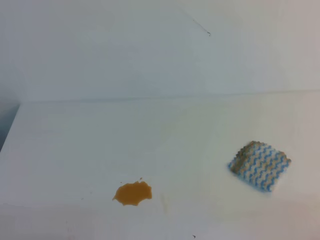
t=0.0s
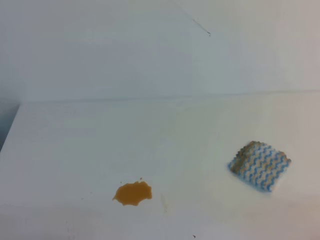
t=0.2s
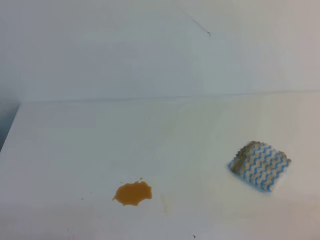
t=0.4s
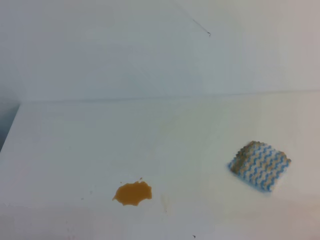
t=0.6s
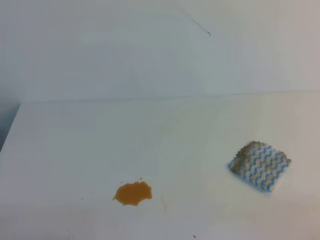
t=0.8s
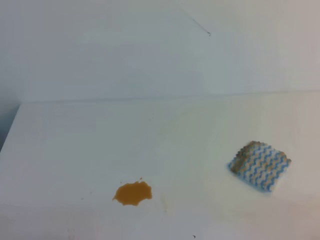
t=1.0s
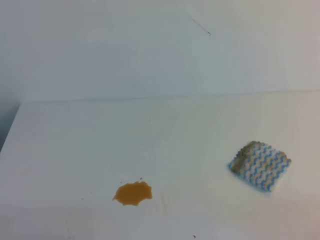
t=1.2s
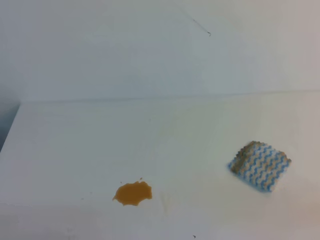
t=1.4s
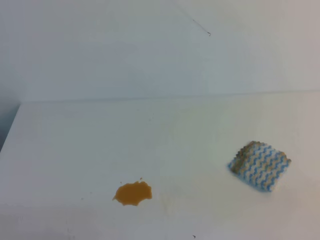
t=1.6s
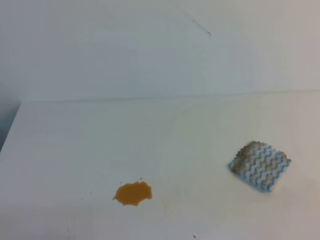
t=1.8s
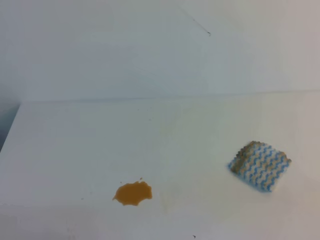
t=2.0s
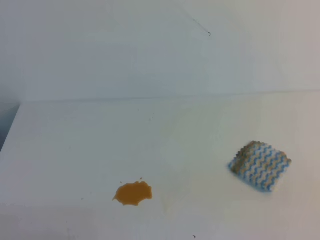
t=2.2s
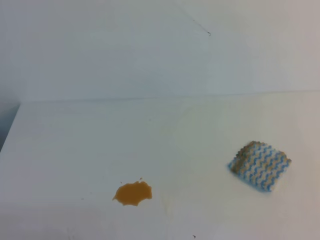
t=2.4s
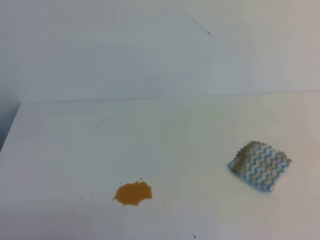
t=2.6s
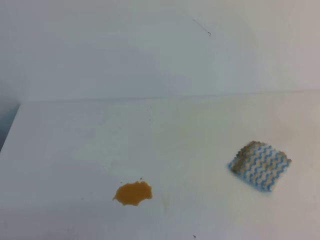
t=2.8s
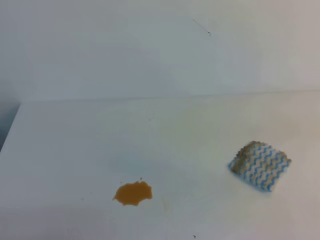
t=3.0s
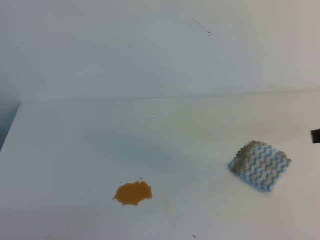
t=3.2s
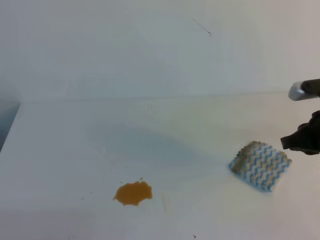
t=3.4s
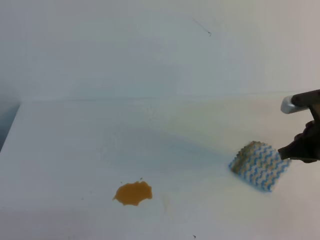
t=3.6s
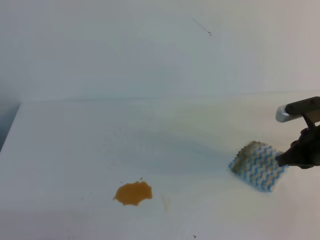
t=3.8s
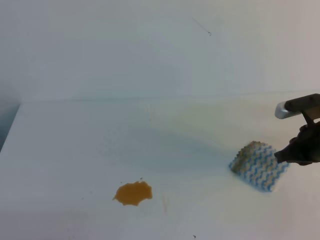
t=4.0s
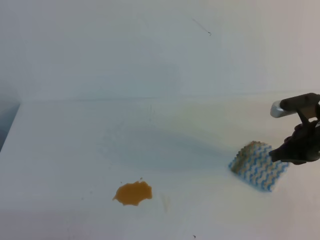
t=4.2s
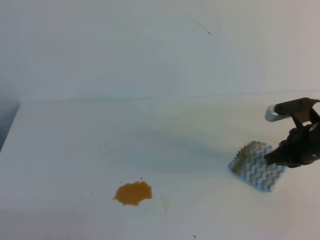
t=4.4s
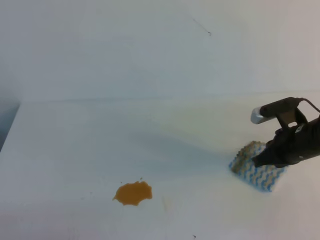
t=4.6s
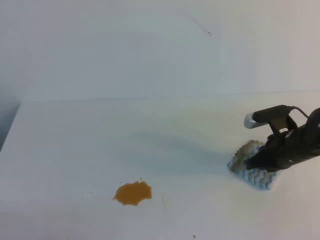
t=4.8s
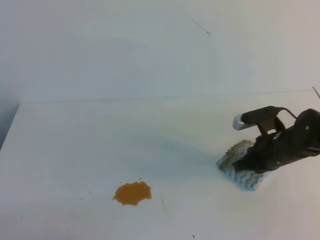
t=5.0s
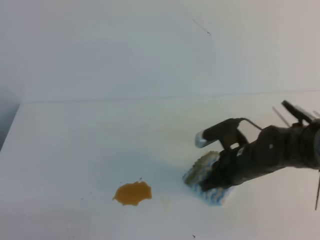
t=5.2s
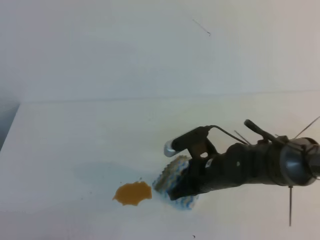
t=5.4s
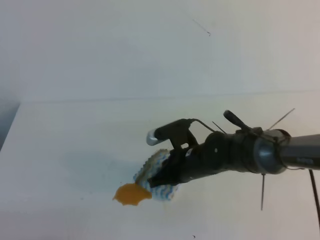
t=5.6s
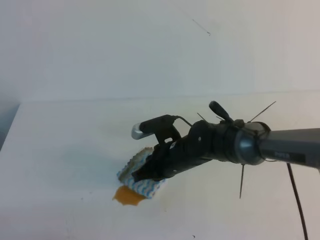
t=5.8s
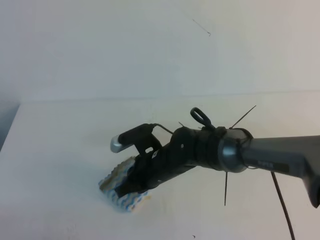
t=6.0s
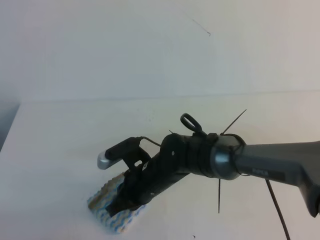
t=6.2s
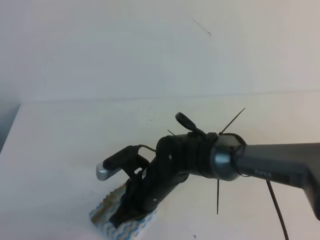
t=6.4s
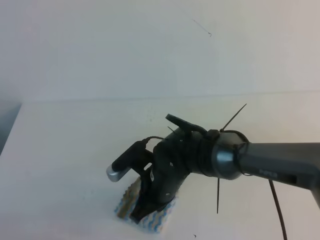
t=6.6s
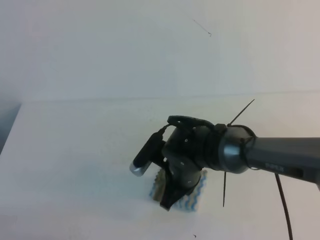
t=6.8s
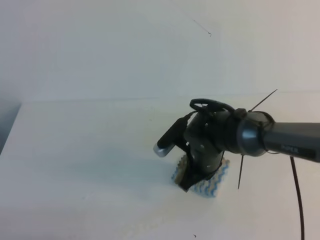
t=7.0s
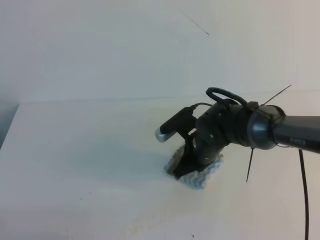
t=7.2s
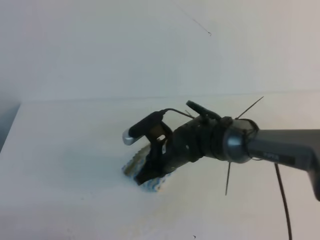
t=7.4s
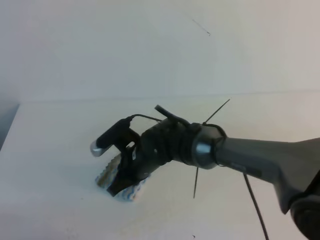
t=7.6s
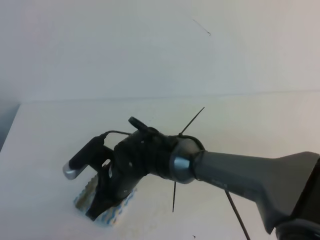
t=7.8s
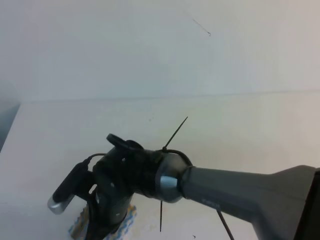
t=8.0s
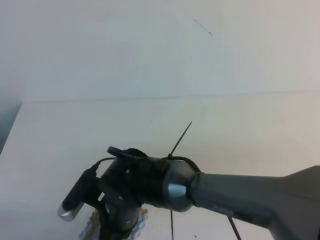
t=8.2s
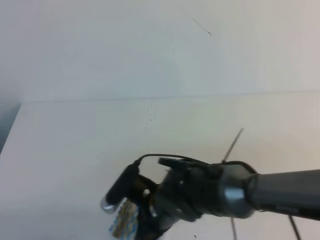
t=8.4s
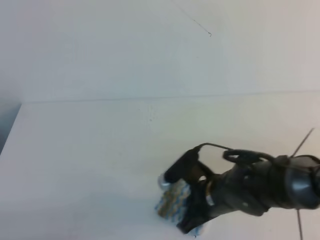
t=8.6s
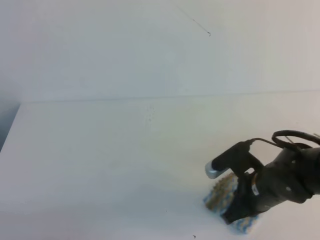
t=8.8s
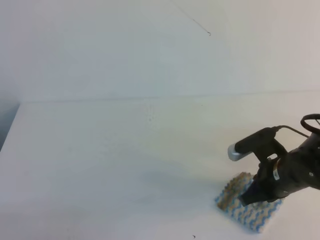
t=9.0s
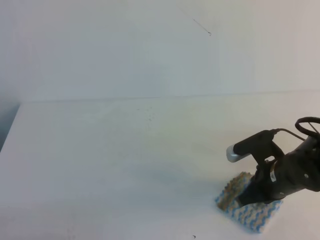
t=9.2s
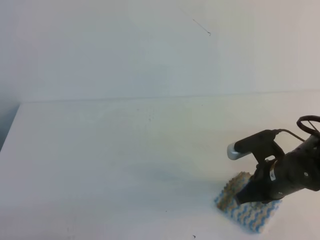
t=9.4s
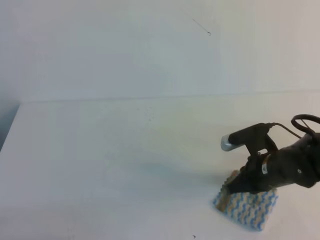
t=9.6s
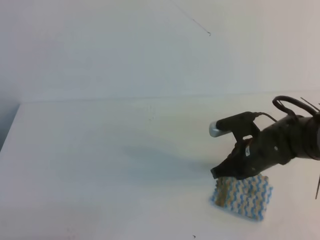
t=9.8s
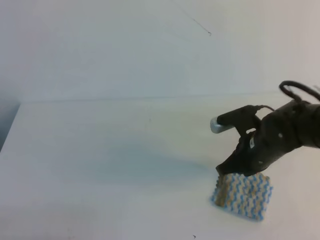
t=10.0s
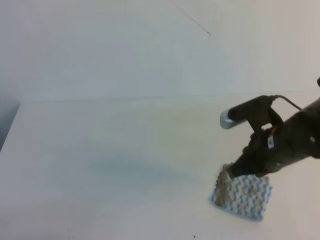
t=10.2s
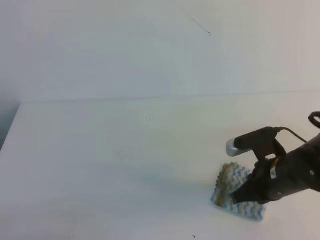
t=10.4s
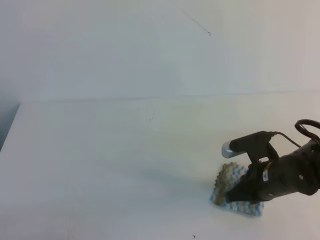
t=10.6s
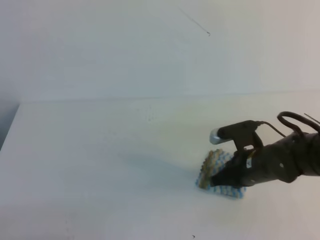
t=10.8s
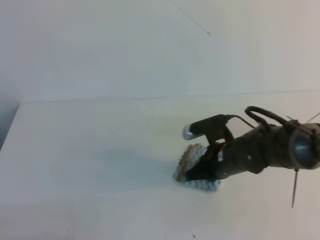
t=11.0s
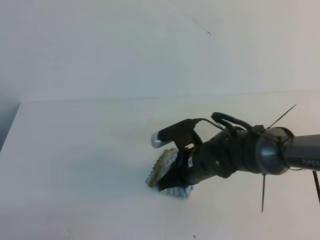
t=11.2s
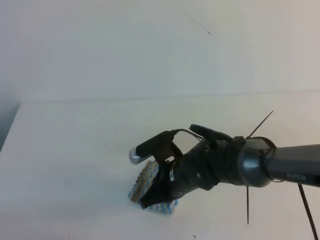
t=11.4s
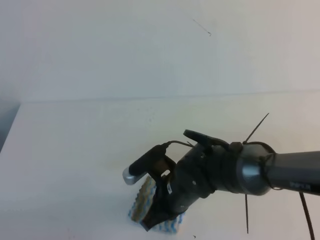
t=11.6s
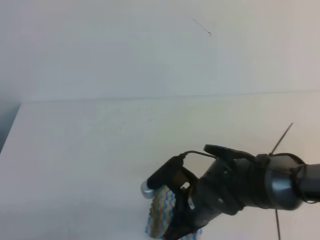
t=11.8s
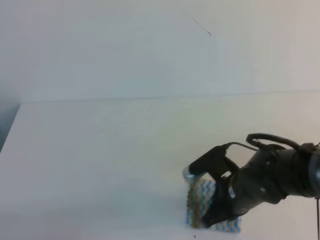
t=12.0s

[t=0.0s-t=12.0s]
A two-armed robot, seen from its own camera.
t=3.0s to t=4.4s: The right gripper travels downward, forward and to the left by about 20 cm.
t=4.4s to t=6.0s: The right gripper goes roughly 25 cm to the left.
t=6.0s to t=7.6s: The right gripper moves some 5 cm to the right and comes back.
t=7.6s to t=9.0s: The right gripper shifts roughly 20 cm to the right.
t=9.0s to t=10.4s: The grippers make only small movements.
t=10.4s to t=12.0s: The right gripper moves to the left, roughly 5 cm.

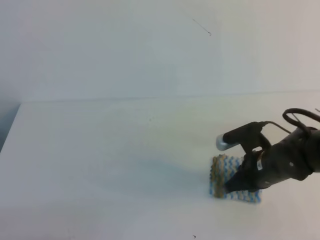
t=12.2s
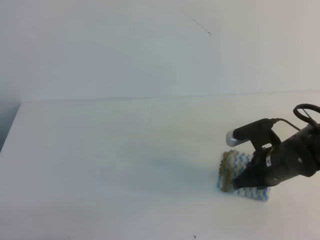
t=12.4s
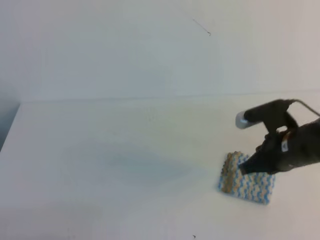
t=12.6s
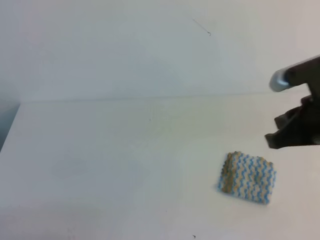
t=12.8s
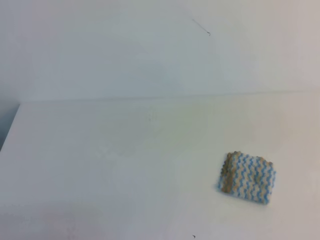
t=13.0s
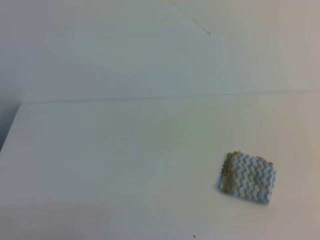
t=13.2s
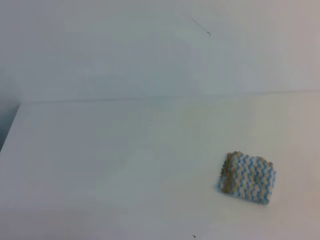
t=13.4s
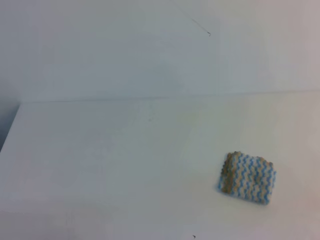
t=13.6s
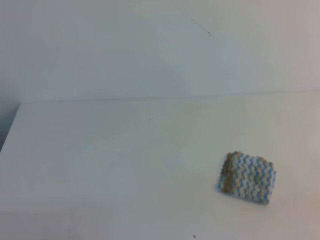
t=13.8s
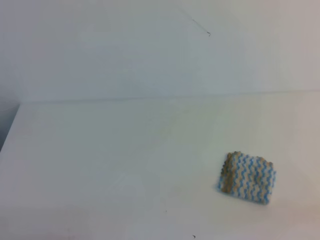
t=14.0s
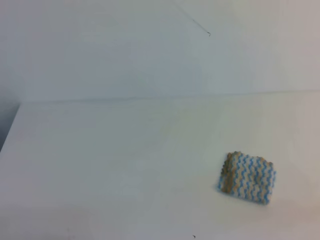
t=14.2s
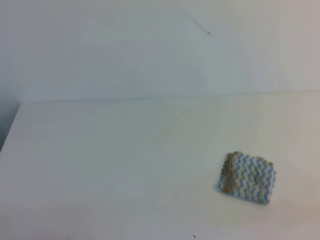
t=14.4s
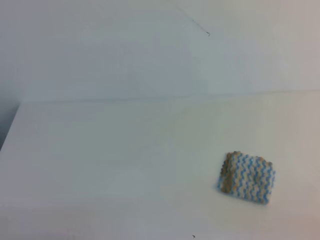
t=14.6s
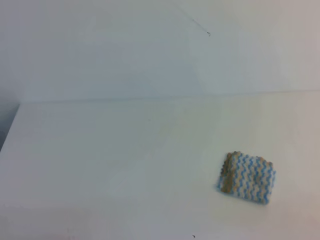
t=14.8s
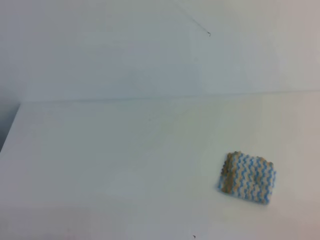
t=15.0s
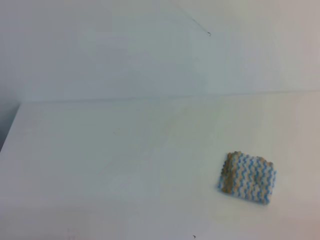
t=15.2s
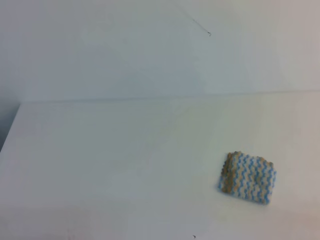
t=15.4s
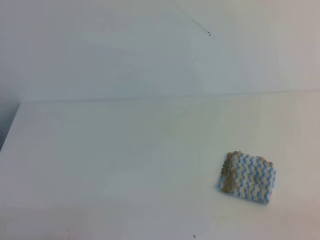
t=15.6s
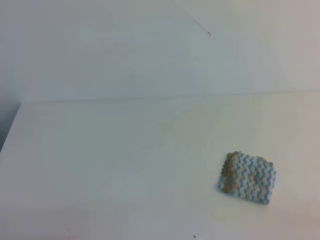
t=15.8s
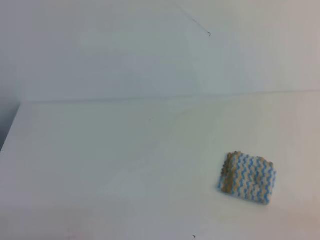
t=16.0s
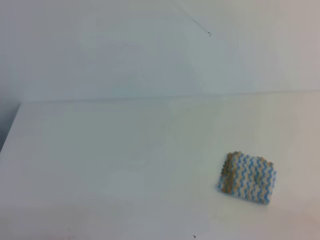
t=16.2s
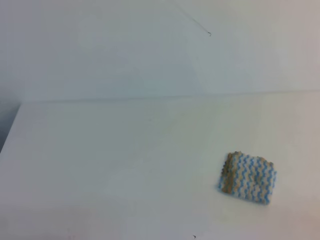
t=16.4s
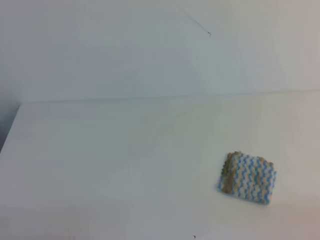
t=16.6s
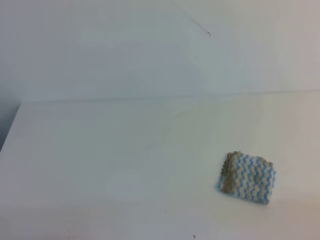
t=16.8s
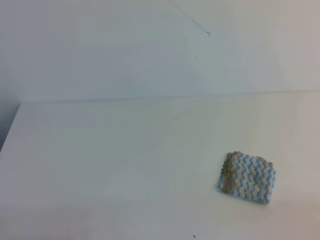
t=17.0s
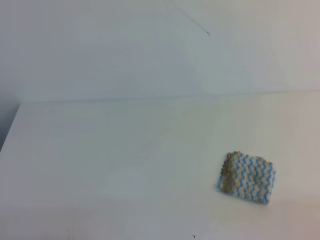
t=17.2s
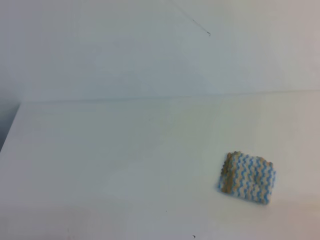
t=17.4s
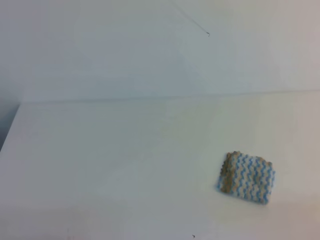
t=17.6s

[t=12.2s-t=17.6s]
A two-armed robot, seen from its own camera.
t=12.2s to t=13.6s: The right gripper moves backward, to the right and upward, some 35 cm.

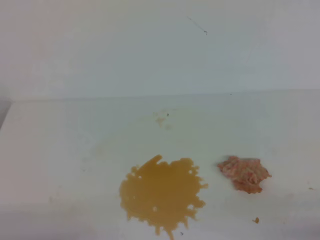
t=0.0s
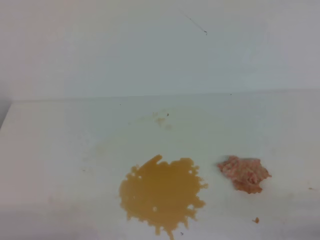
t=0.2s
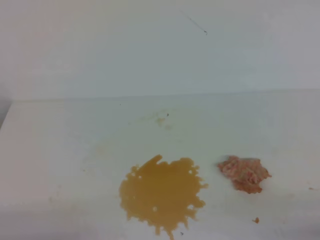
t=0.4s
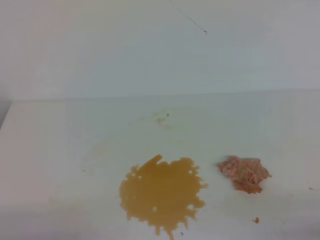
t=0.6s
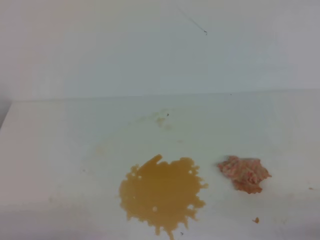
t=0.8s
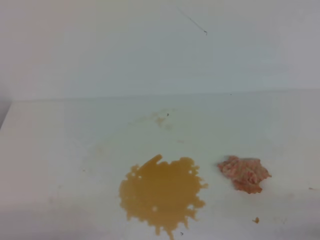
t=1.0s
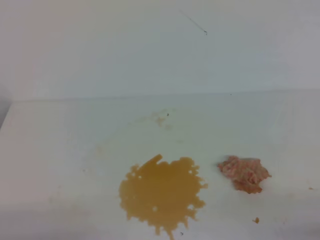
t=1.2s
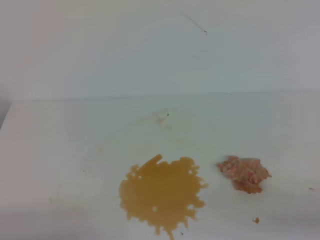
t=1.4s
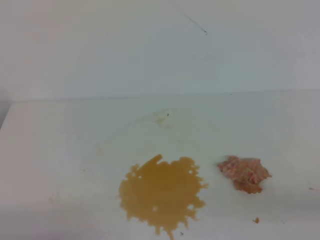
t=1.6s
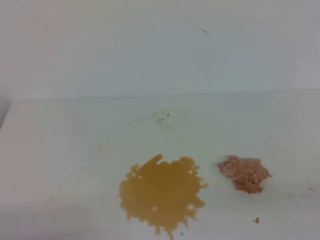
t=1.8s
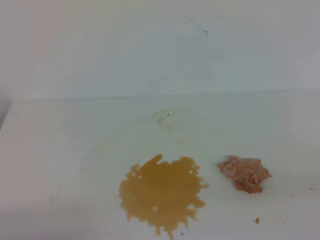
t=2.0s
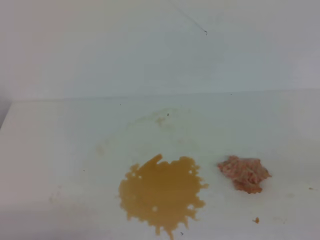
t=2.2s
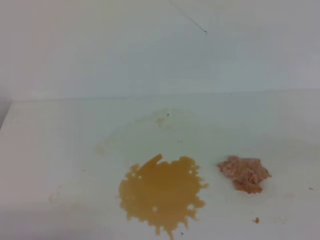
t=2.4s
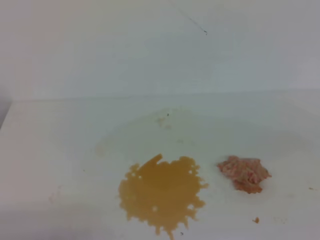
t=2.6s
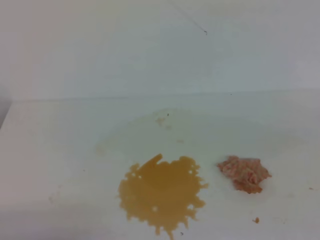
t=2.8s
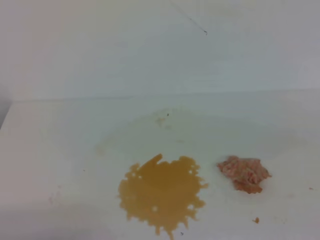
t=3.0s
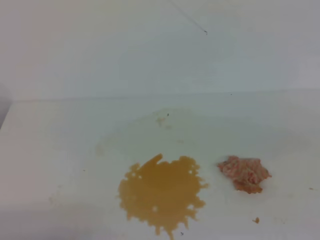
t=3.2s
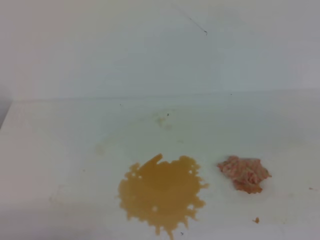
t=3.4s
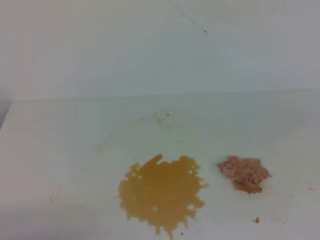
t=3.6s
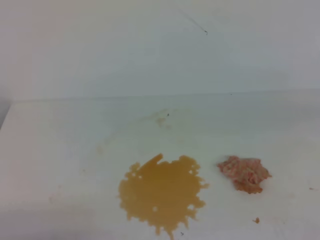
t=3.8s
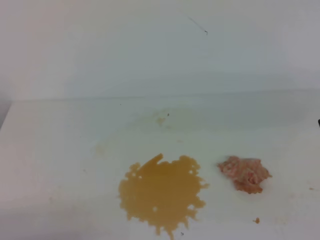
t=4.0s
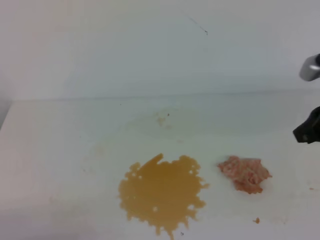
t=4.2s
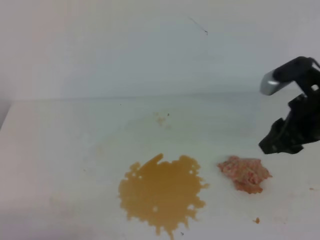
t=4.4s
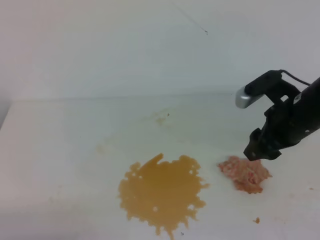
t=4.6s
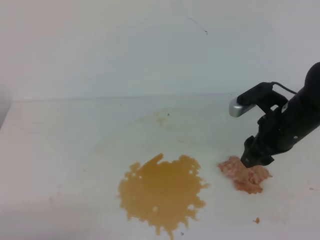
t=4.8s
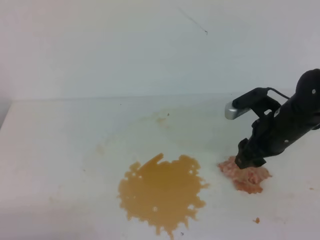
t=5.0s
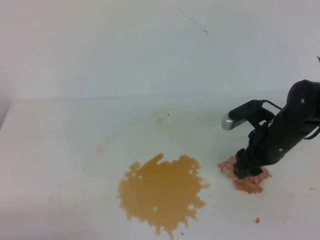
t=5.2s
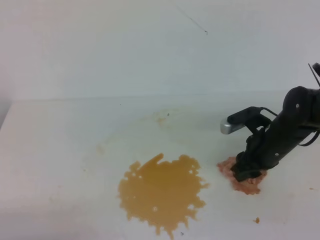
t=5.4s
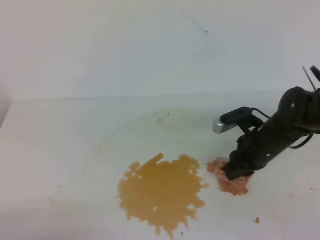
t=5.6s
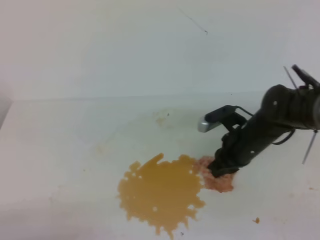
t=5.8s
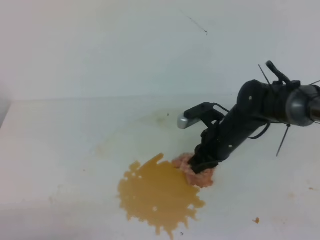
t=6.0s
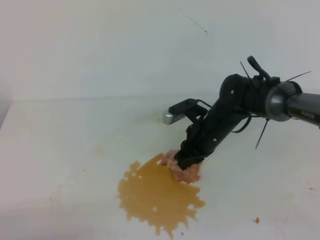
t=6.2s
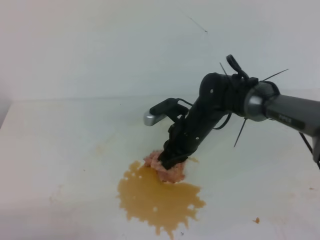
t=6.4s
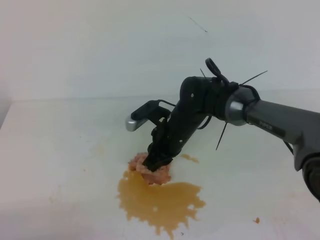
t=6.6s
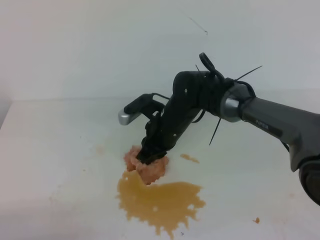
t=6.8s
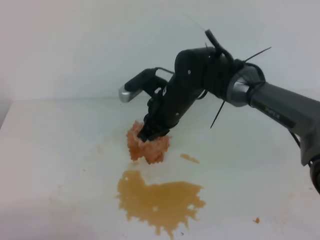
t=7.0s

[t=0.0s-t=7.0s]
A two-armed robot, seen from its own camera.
t=2.8s to t=4.2s: The right gripper is displaced forward by some 20 cm, and opens.
t=4.2s to t=5.6s: The right gripper shifts roughly 20 cm downward, forward and to the left, and opens, then closes again.
t=5.6s to t=7.0s: The right gripper travels to the left and upward by roughly 15 cm.
